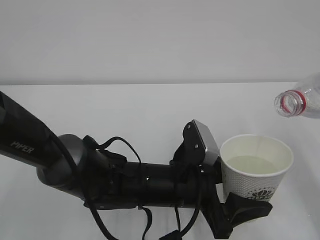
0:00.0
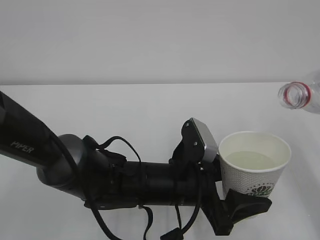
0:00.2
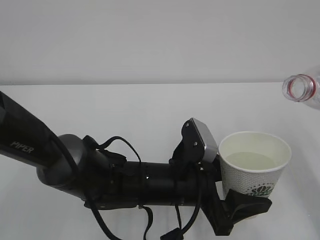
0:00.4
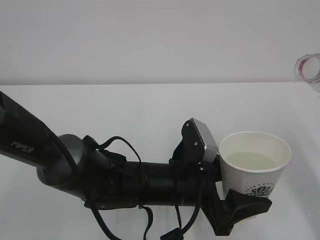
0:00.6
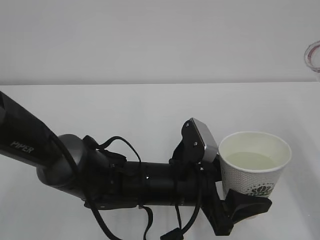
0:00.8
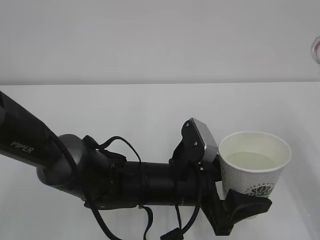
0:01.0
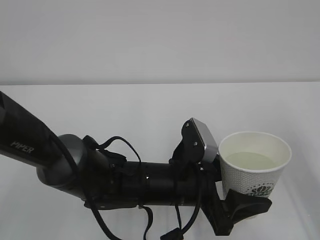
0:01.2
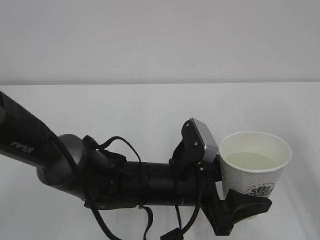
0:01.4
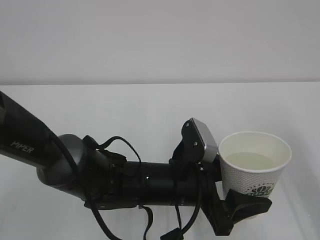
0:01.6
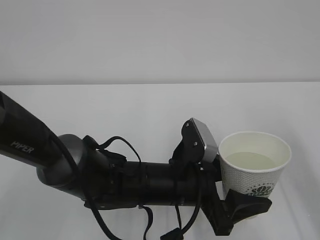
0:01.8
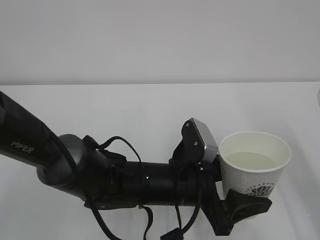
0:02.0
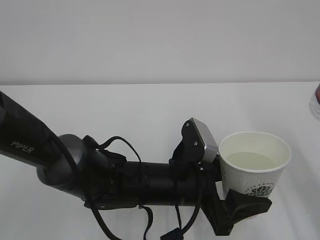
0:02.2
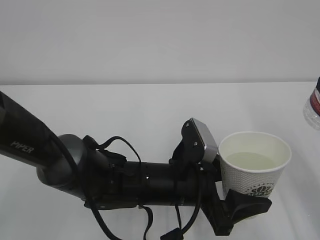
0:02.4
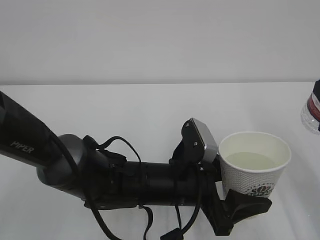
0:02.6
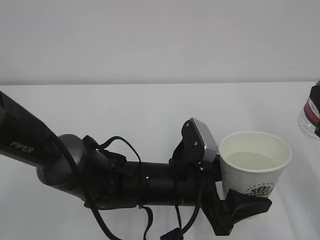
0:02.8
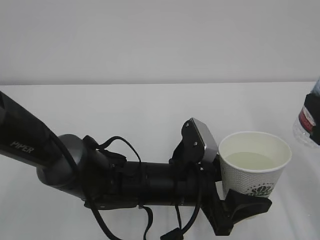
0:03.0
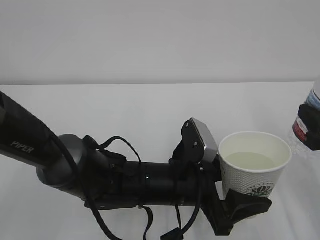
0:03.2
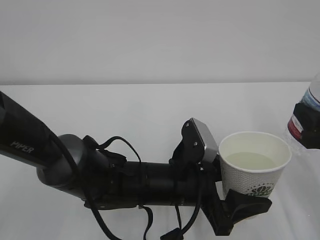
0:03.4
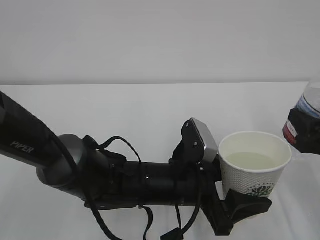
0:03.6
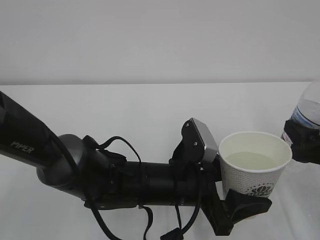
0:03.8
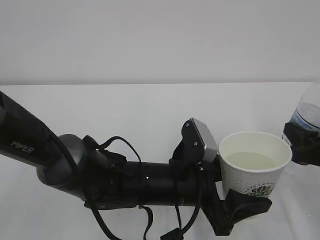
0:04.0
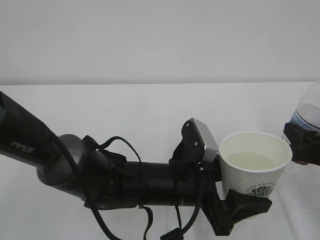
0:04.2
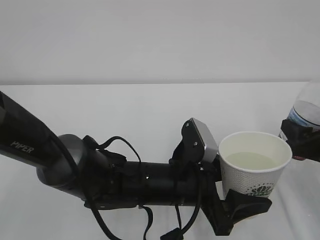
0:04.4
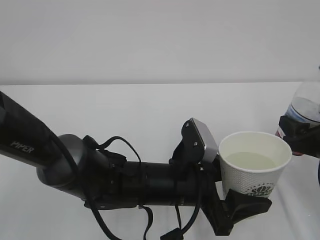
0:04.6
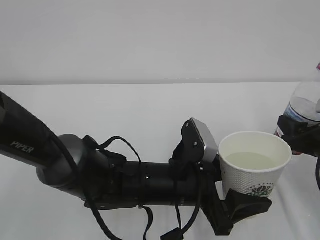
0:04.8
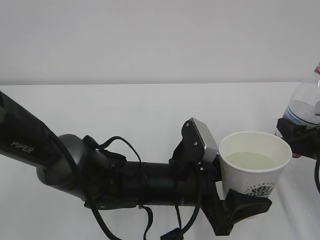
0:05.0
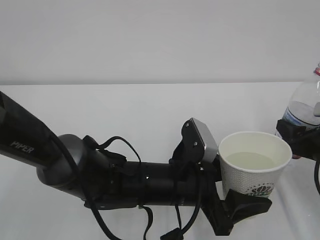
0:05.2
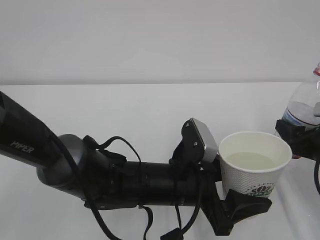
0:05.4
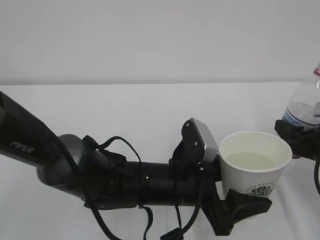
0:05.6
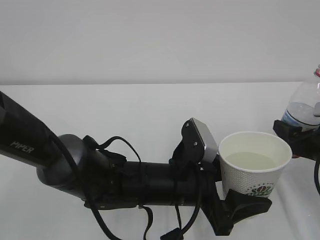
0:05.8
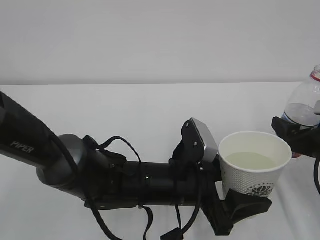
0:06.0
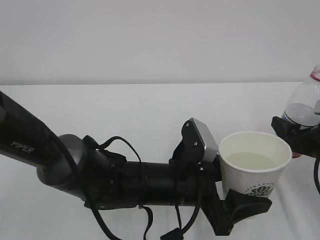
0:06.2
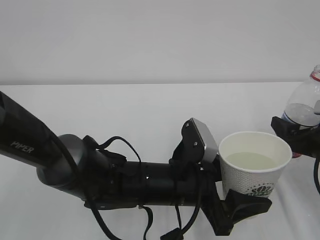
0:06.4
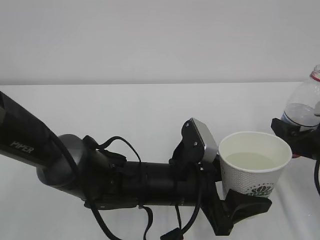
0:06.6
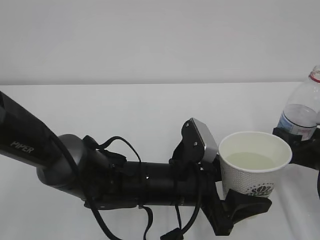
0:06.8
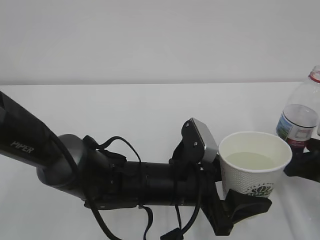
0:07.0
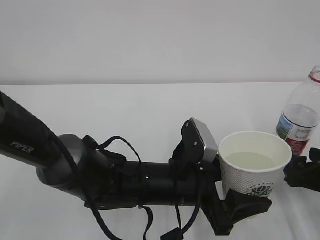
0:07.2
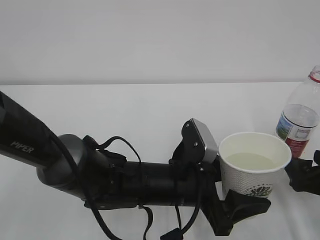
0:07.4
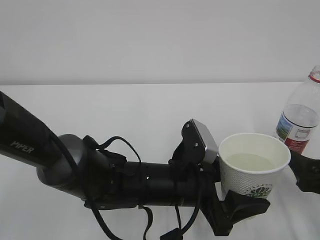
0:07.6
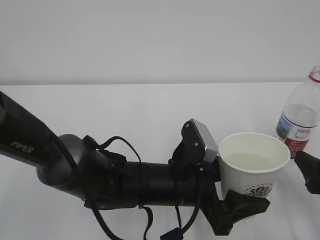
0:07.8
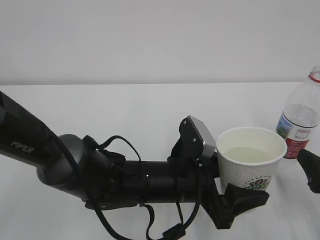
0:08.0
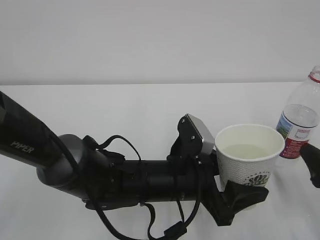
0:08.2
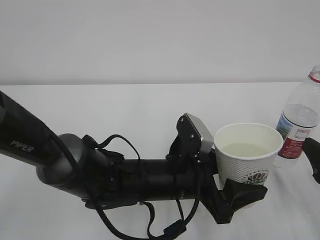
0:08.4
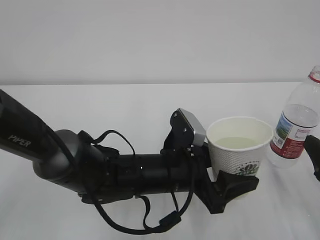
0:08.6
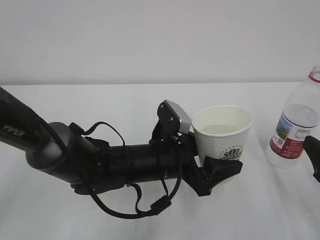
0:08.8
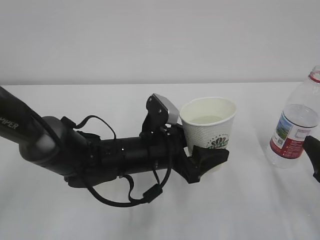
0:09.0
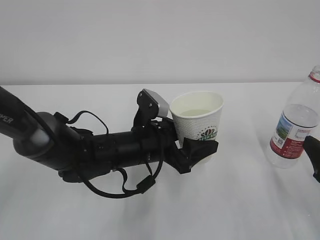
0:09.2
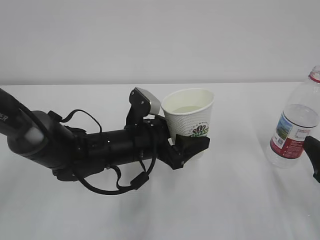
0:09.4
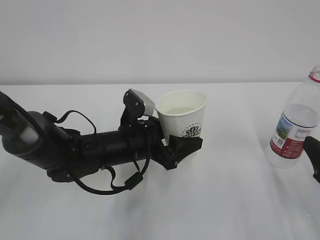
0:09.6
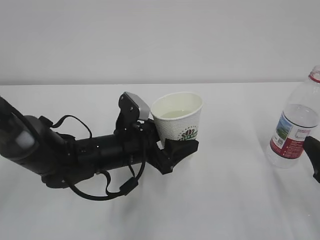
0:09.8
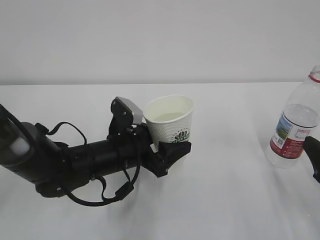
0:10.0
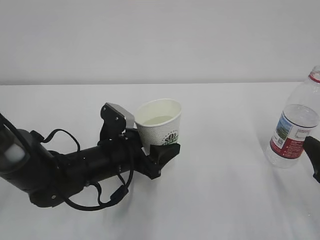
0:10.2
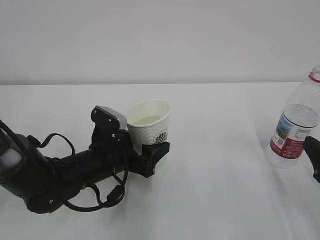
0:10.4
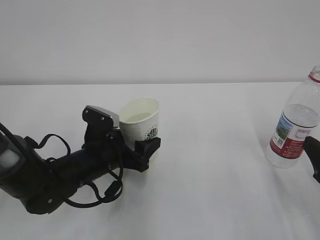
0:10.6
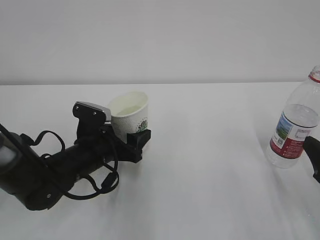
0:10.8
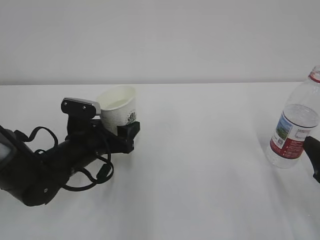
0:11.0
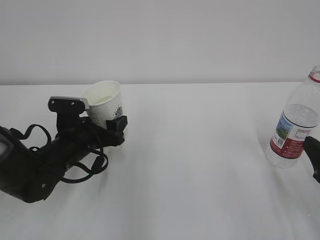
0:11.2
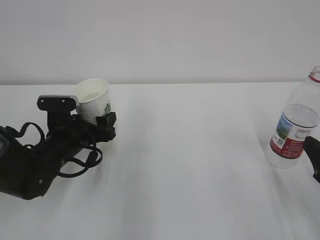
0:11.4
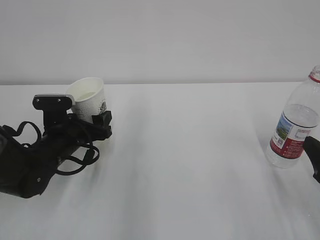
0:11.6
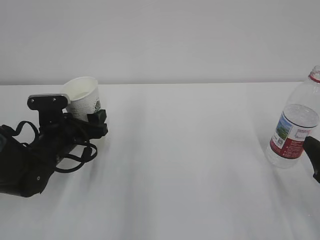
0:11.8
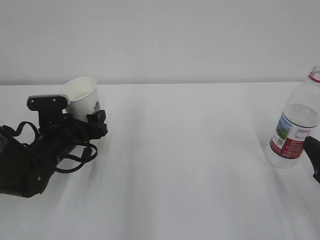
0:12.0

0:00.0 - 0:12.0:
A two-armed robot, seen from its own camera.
0:03.0 - 0:04.4: The right gripper goes approximately 5 cm downward.
0:04.4 - 0:06.0: The right gripper opens its fingers.
0:06.0 - 0:07.6: The right gripper travels backward by about 5 cm.
0:07.6 - 0:09.0: The left gripper shifts approximately 5 cm forward.
0:09.0 - 0:10.4: The left gripper shifts approximately 10 cm to the left.
0:10.4 - 0:12.0: The left gripper goes about 10 cm to the left.

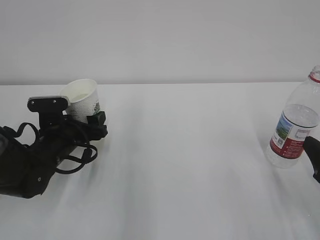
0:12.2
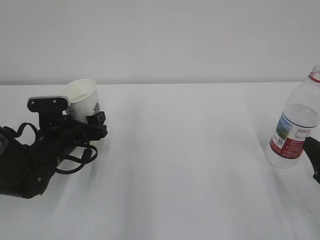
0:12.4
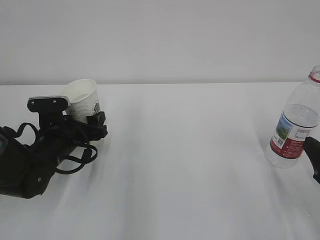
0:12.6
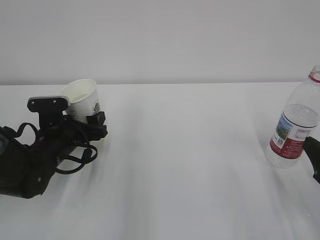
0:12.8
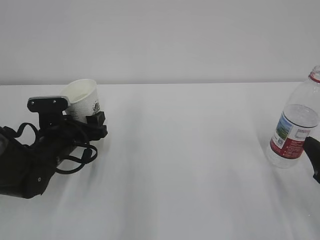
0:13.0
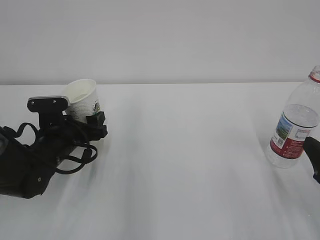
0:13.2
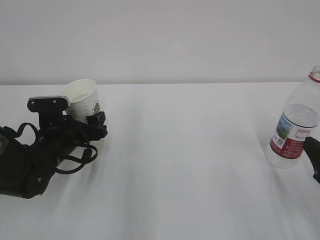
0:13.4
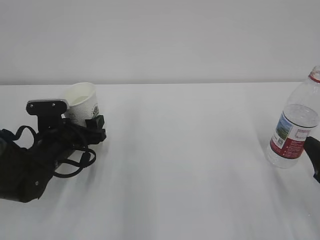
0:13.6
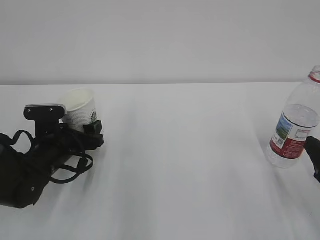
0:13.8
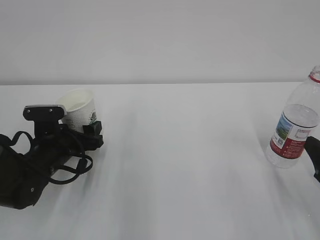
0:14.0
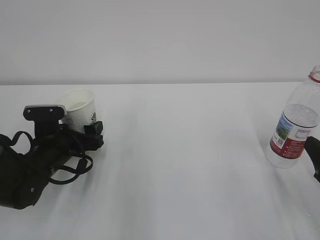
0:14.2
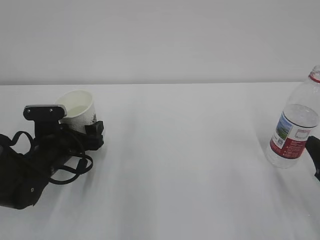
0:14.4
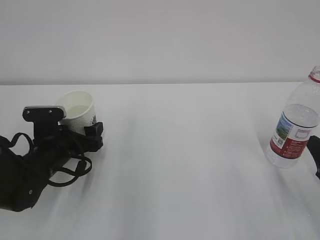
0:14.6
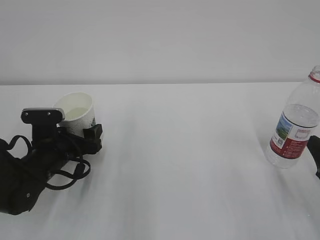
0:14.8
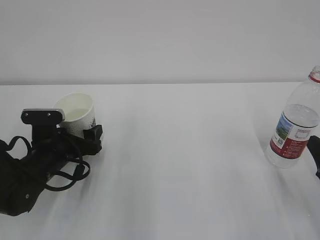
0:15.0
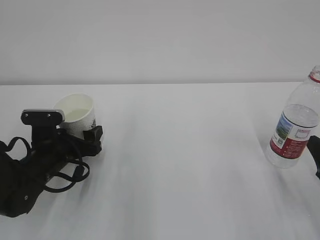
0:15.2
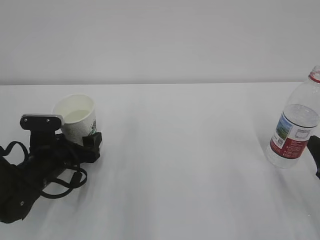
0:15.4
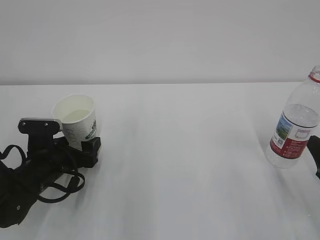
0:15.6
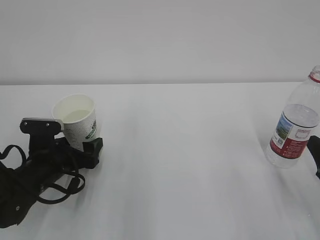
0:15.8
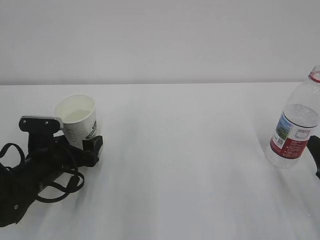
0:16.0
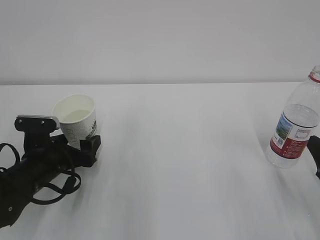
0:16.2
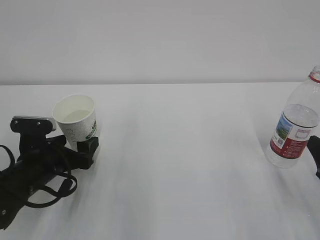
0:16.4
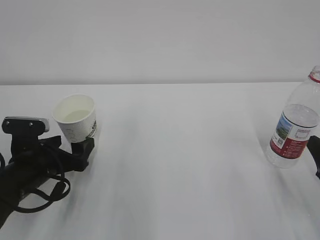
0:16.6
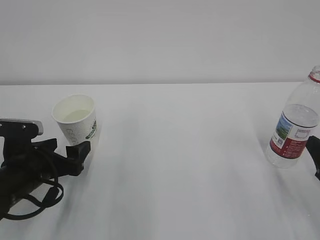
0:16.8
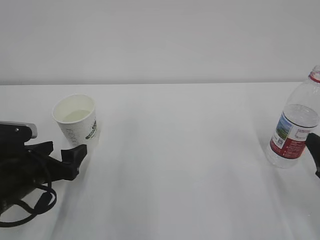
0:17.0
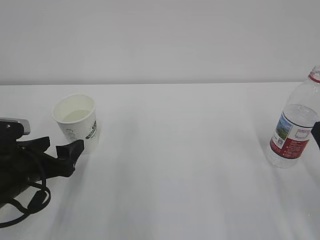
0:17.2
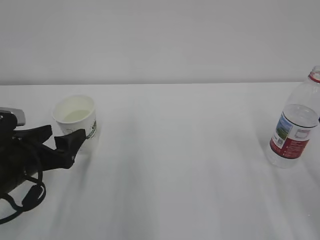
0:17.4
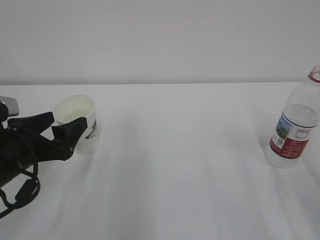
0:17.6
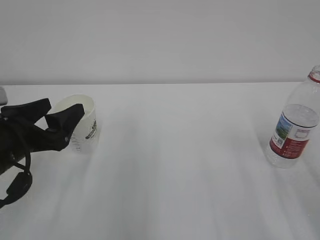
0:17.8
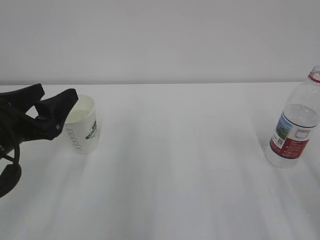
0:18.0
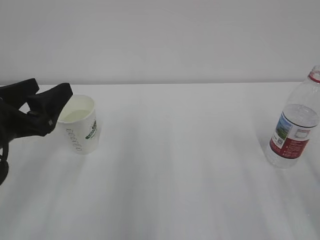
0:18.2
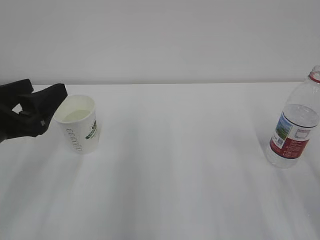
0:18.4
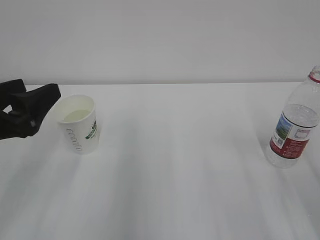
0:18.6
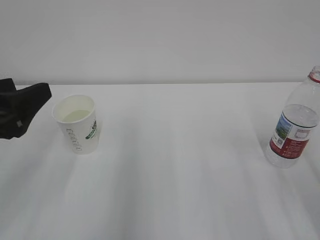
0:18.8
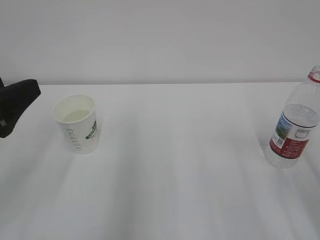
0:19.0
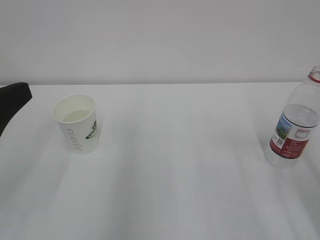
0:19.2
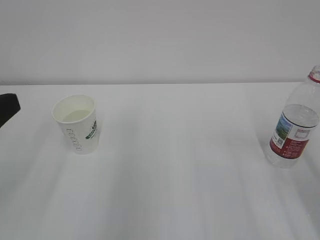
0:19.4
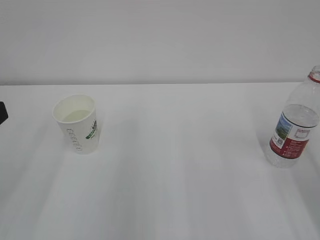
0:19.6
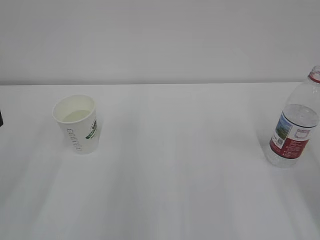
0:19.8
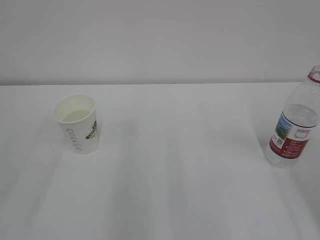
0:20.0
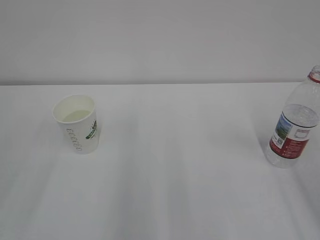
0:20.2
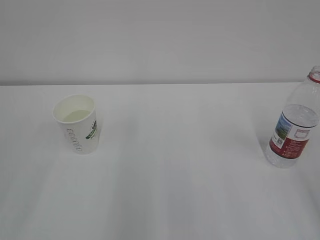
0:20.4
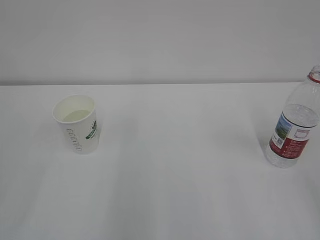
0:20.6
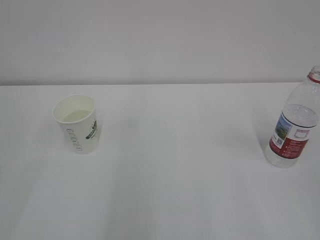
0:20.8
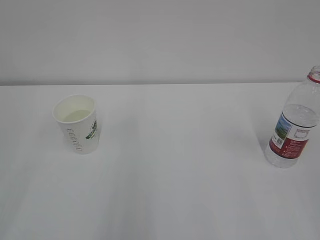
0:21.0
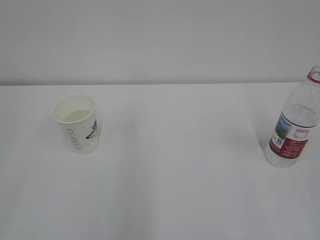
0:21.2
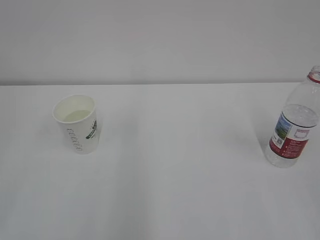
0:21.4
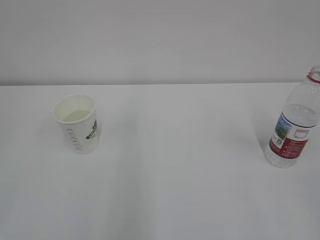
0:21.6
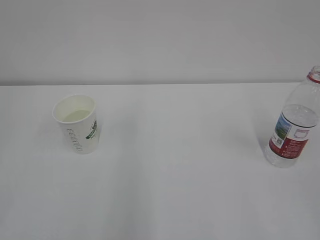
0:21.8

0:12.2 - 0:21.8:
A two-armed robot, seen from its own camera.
0:12.2 - 0:13.8: The grippers make only small movements.
0:13.8 - 0:15.4: The left gripper opens.
0:15.4 - 0:17.0: The left gripper heads backward, covering approximately 5 cm.
0:17.0 - 0:18.6: The left gripper is displaced upward by roughly 15 cm, and closes up.
0:18.6 - 0:20.2: The left gripper goes about 10 cm upward and backward.

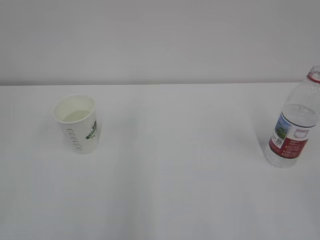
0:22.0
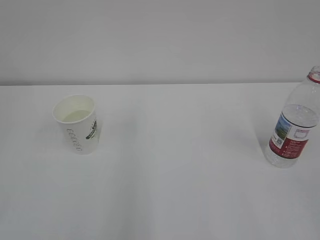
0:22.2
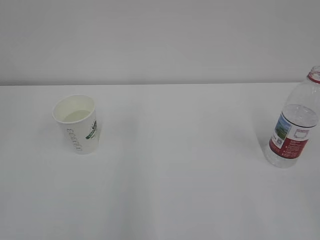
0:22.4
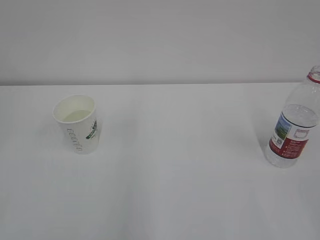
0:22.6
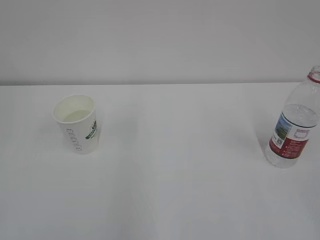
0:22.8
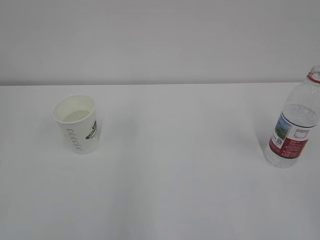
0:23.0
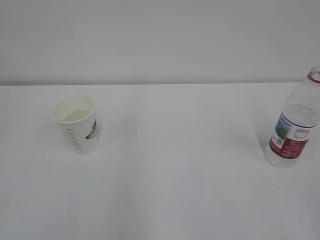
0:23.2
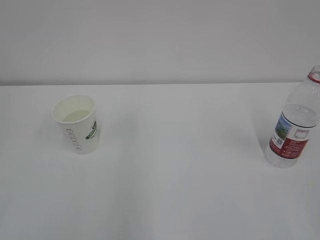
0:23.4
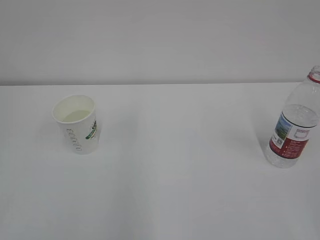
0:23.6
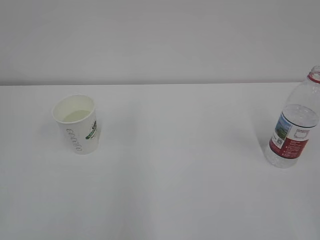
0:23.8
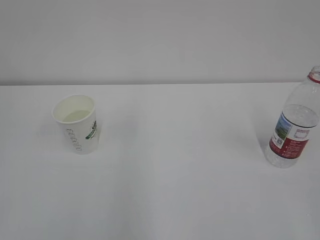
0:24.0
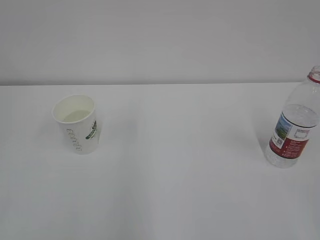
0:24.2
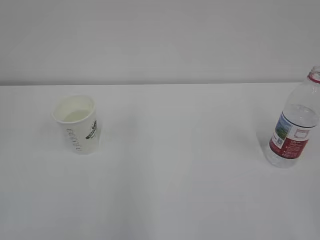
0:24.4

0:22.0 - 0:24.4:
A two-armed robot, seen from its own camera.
0:23.2 - 0:24.4: Both grippers stay about where they are.
